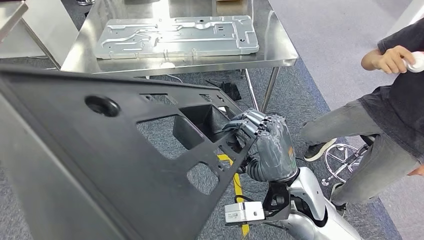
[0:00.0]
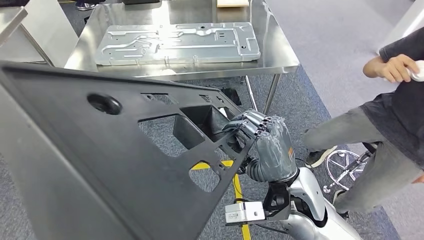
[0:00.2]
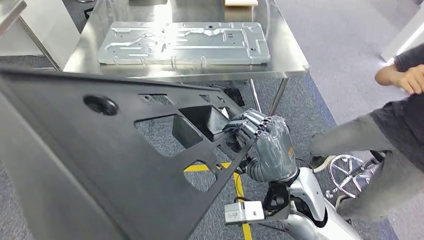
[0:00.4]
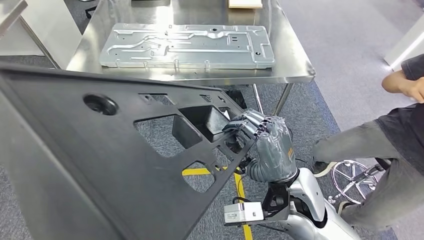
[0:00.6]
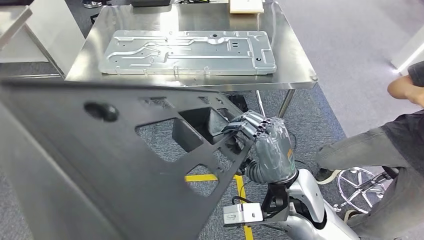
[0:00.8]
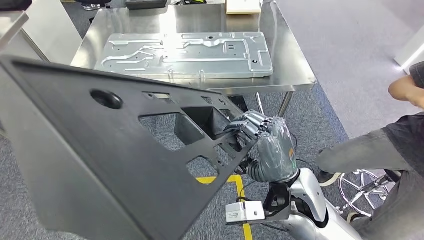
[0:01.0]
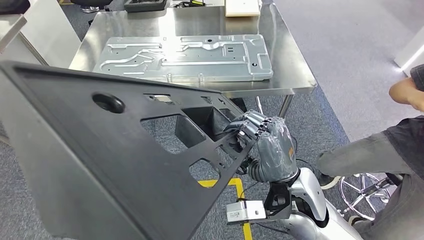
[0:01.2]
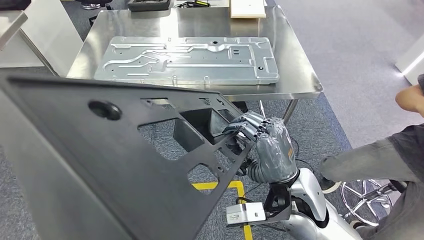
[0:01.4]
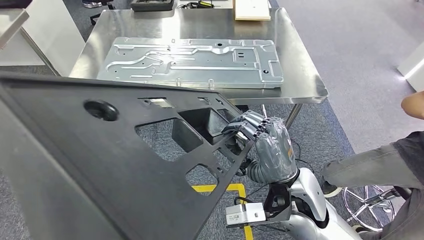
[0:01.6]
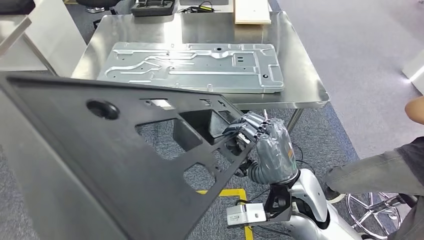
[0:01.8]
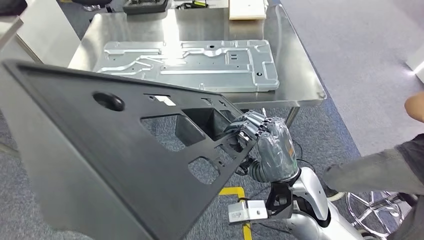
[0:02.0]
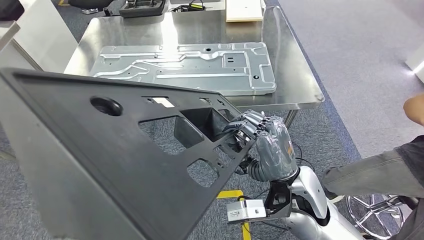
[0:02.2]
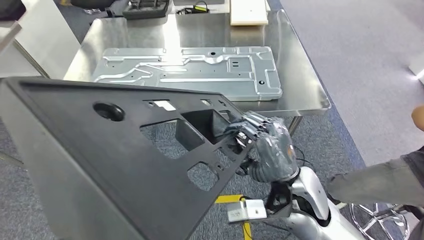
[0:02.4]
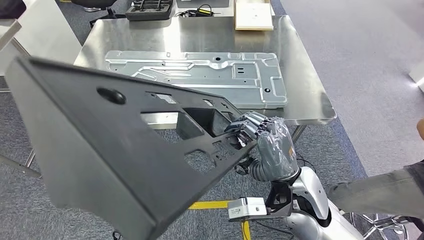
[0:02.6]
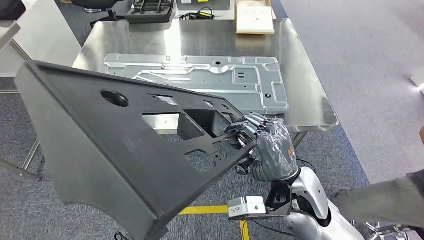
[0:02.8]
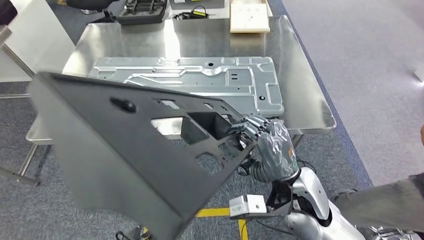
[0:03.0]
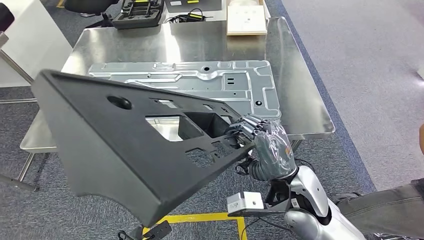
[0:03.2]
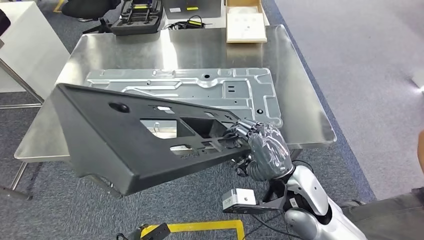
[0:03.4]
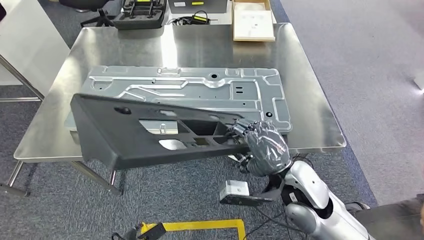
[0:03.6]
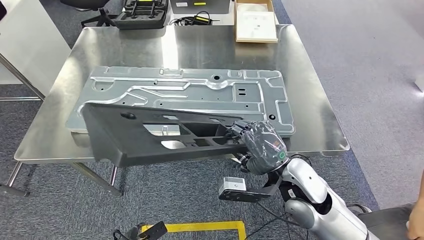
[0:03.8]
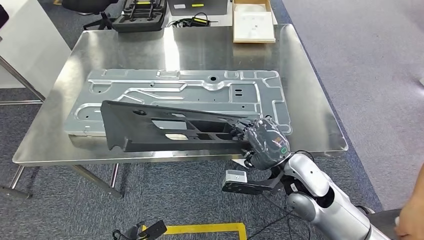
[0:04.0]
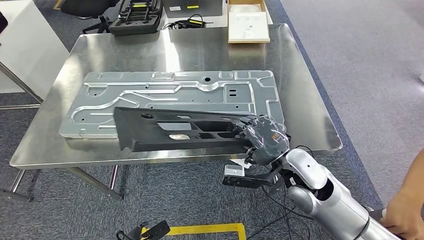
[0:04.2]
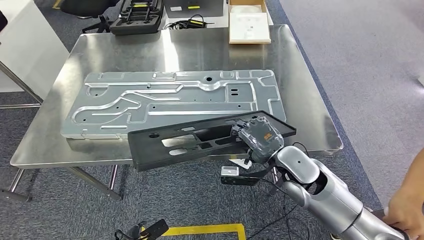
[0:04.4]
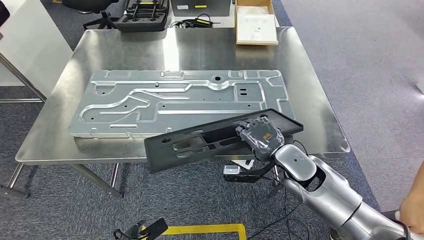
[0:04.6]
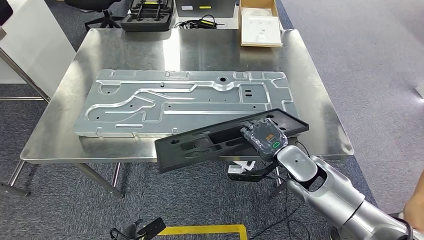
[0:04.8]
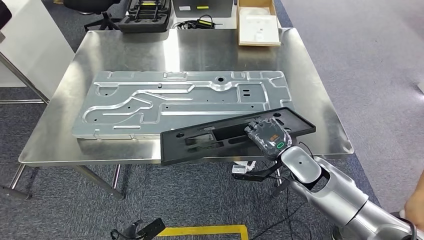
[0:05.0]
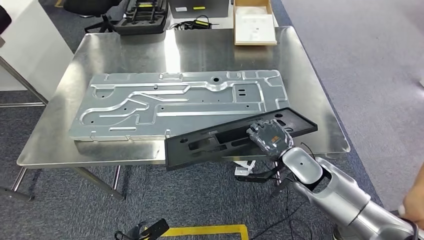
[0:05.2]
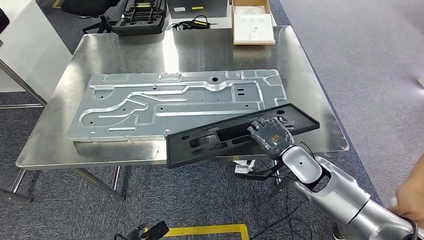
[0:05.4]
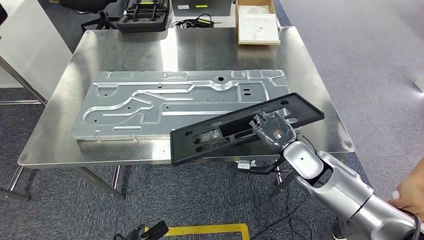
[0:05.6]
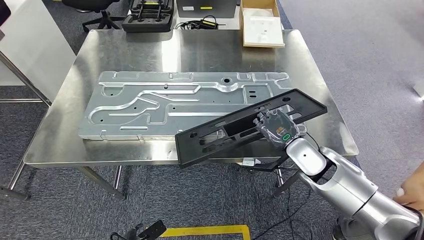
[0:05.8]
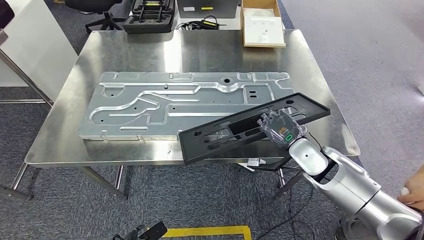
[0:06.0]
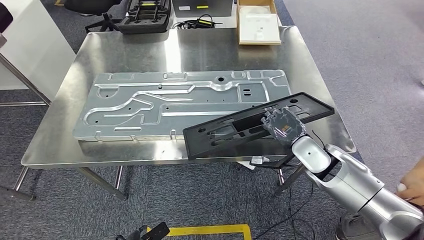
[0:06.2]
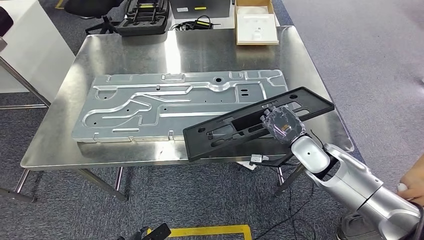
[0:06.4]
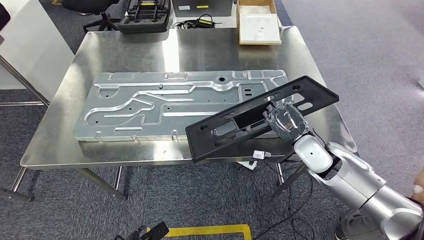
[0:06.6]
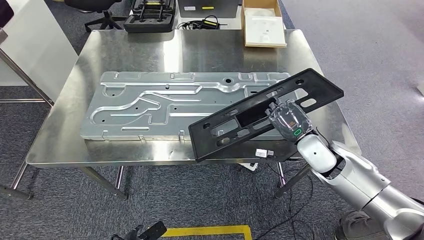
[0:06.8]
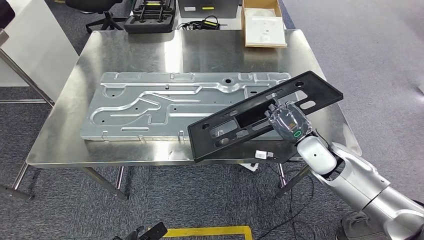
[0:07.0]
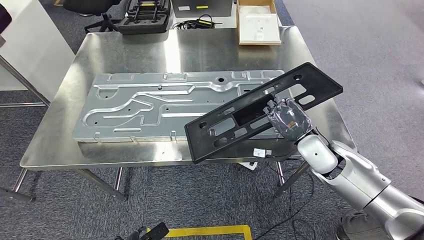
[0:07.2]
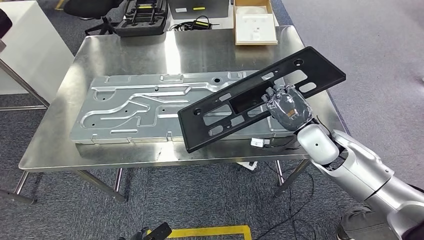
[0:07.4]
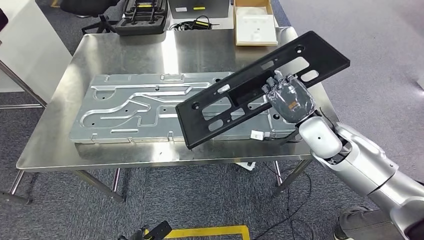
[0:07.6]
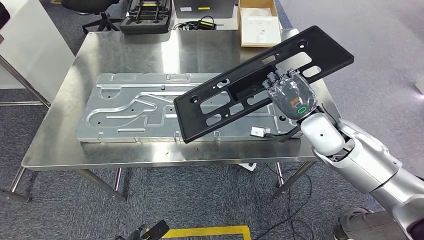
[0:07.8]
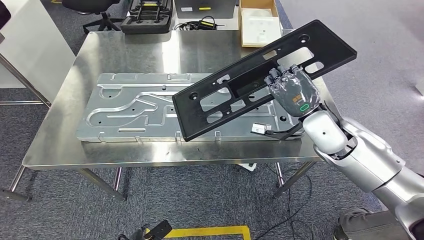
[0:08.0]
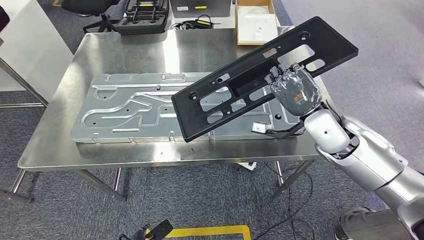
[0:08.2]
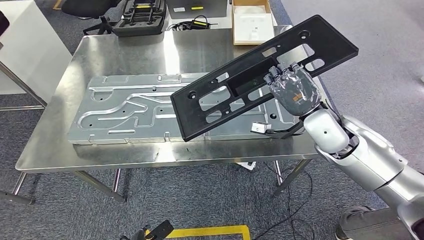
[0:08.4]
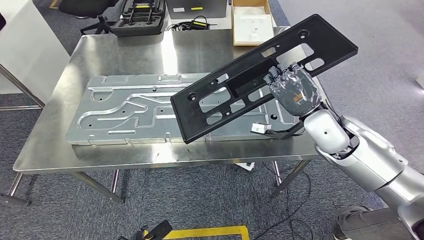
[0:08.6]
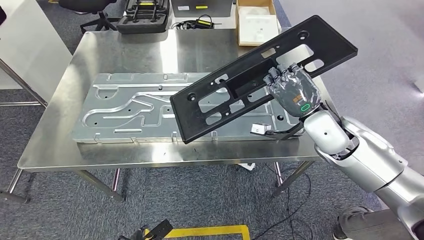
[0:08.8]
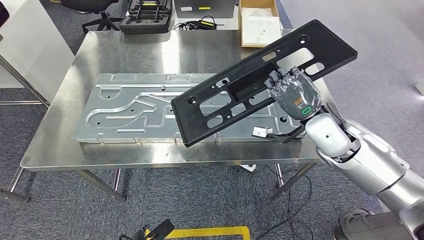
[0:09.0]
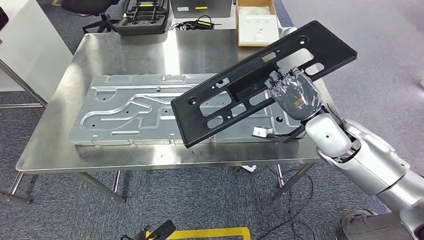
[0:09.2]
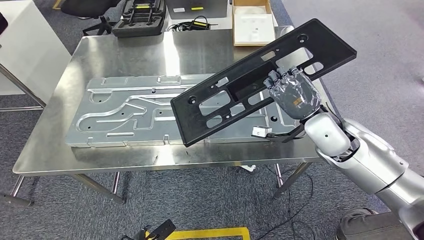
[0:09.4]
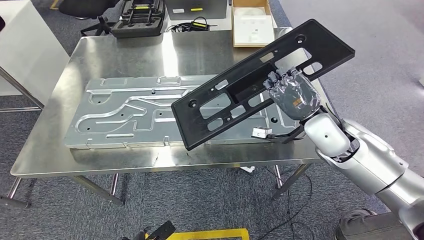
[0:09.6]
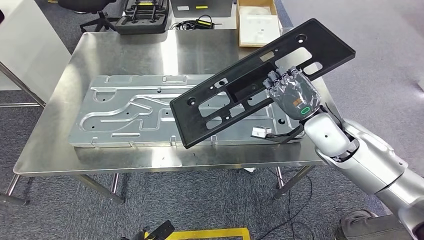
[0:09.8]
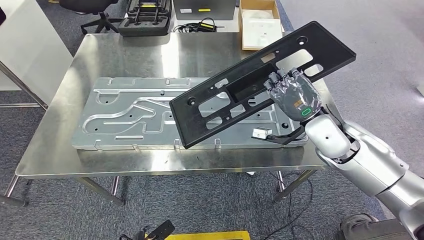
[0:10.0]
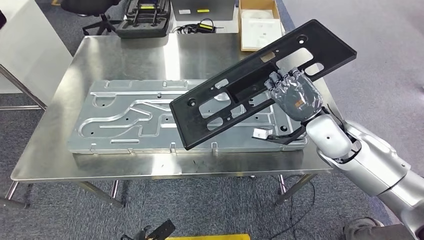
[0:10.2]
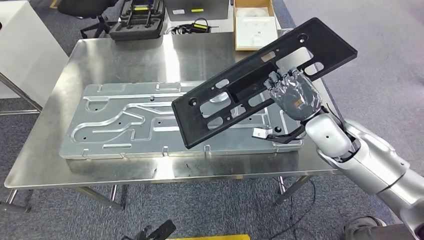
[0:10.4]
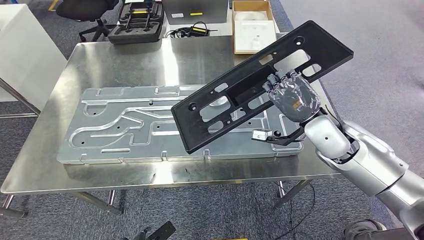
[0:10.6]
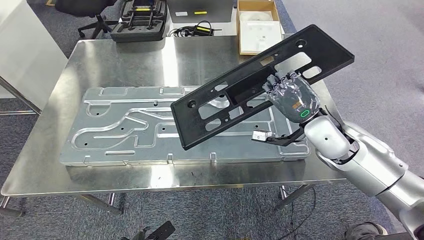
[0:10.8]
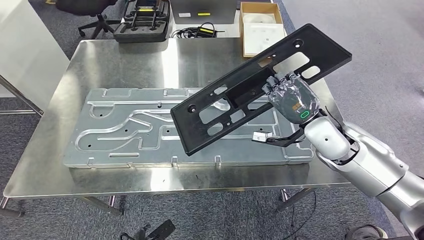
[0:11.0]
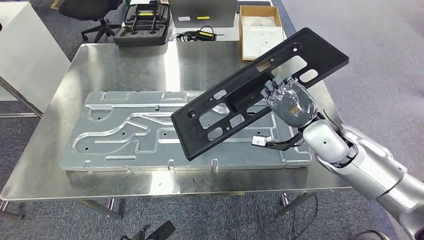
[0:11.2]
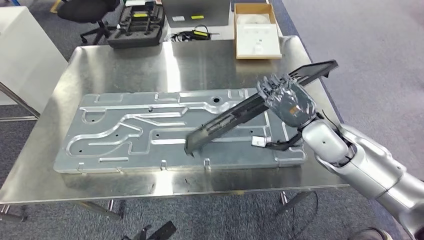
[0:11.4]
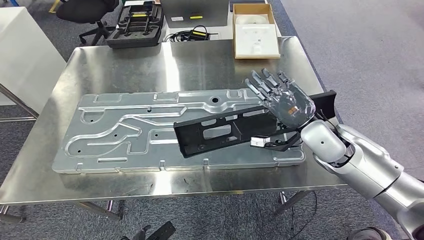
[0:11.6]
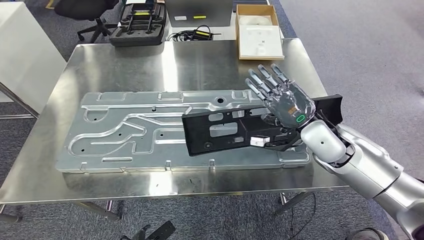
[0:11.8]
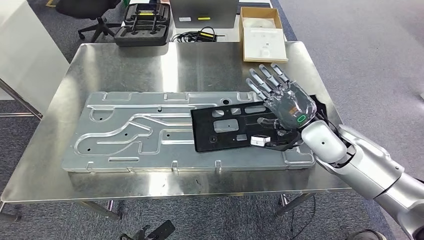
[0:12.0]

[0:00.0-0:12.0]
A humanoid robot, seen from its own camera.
Step, 0:00.0 to 0:02.0: Move the large material to the workbench.

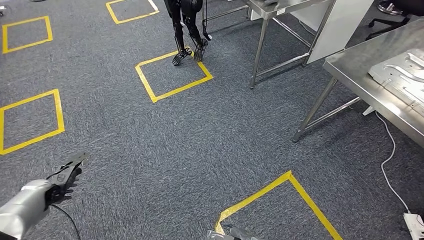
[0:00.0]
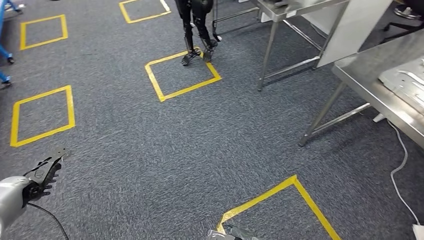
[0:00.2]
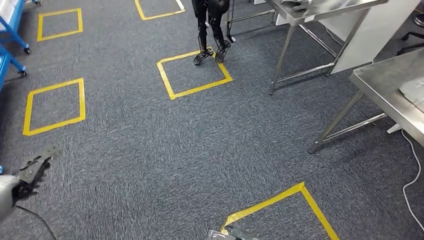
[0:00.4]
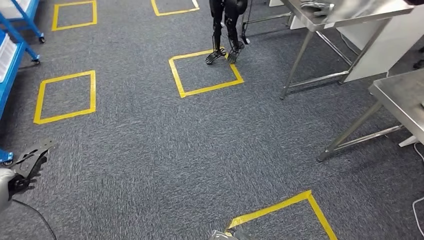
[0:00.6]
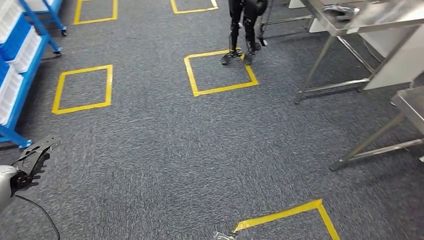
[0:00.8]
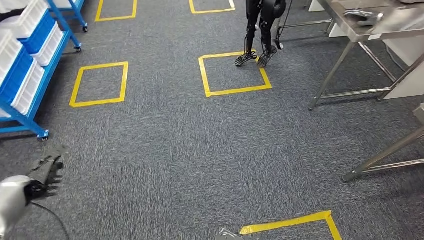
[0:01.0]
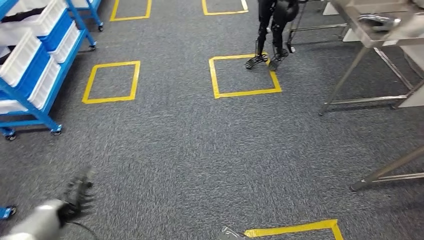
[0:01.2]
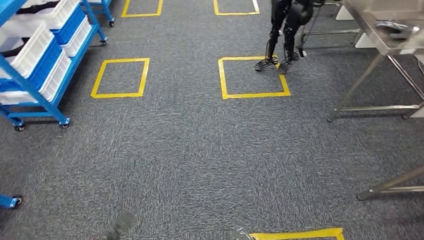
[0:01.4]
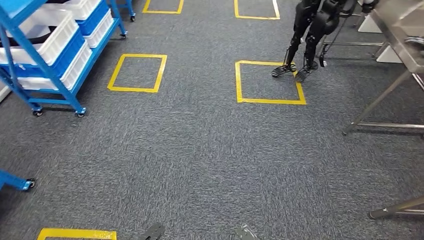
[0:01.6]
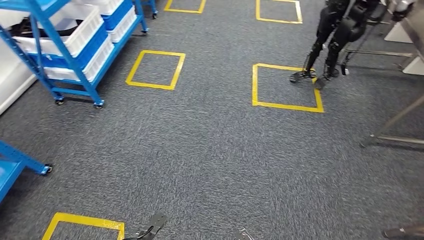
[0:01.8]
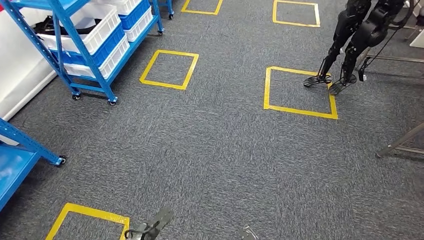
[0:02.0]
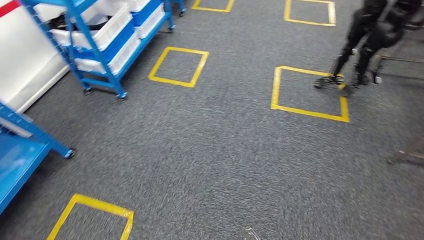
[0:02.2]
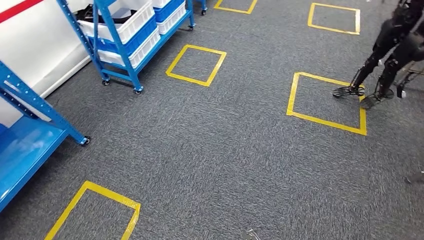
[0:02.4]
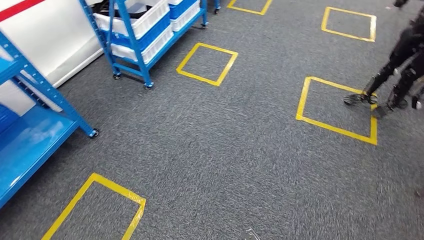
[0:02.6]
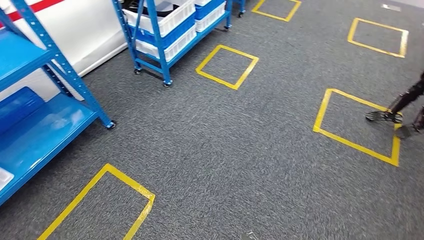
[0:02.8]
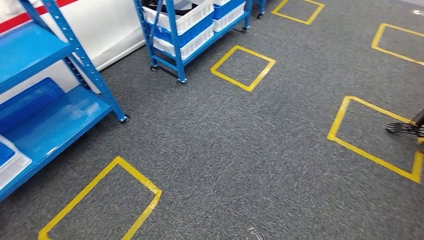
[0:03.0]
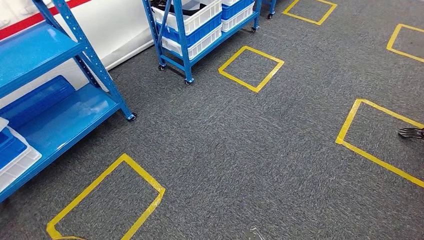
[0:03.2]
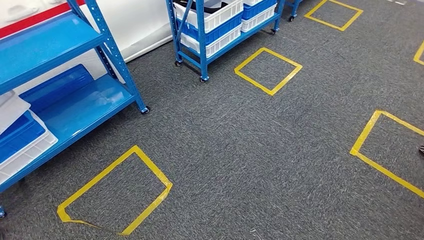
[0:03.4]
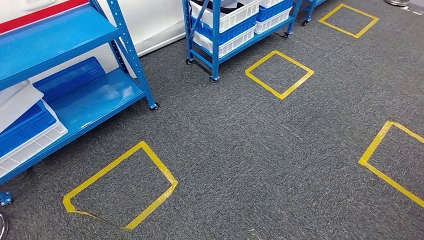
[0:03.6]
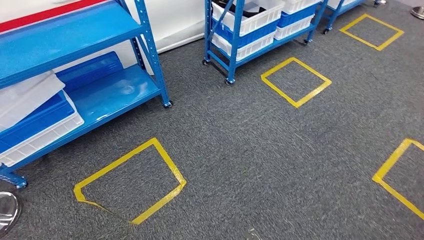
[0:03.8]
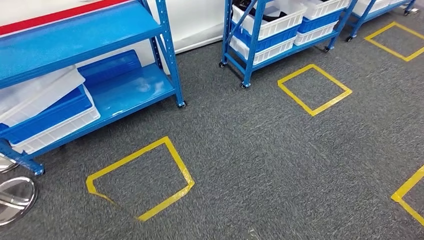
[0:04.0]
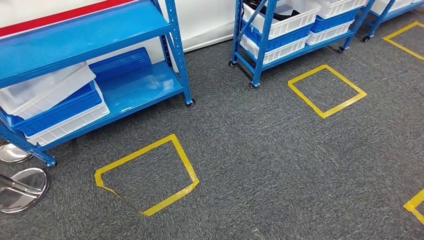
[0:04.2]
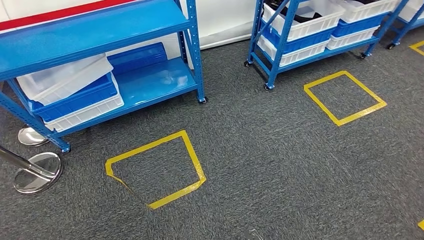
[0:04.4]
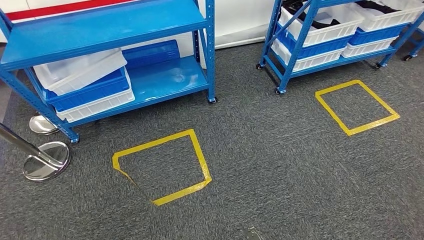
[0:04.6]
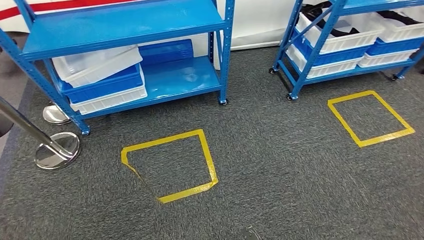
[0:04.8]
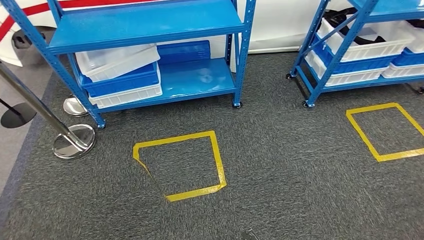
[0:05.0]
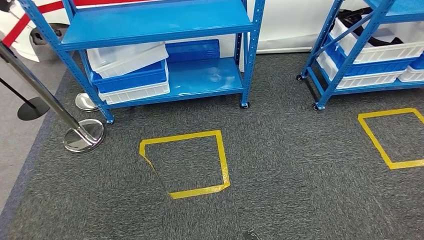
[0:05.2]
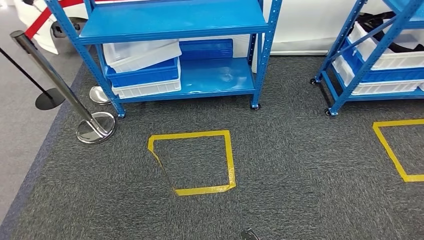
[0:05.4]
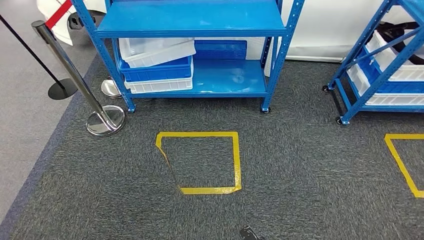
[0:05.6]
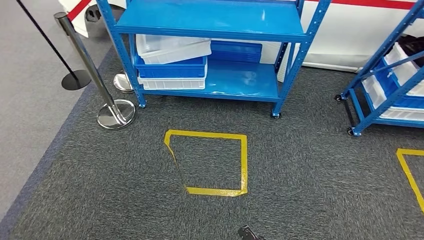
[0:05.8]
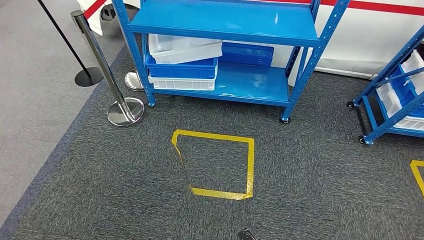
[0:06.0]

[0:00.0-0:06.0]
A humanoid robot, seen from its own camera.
Step, 0:00.0 to 0:06.0: Move to the initial position of the shelf.
